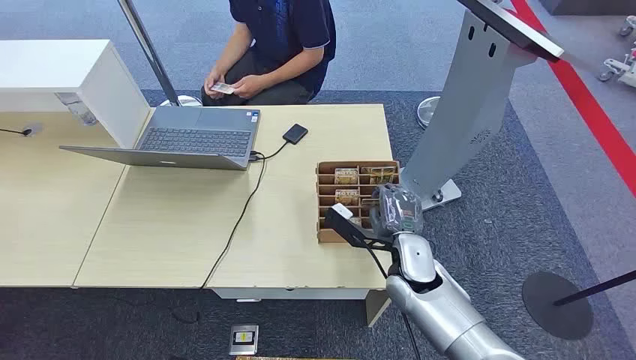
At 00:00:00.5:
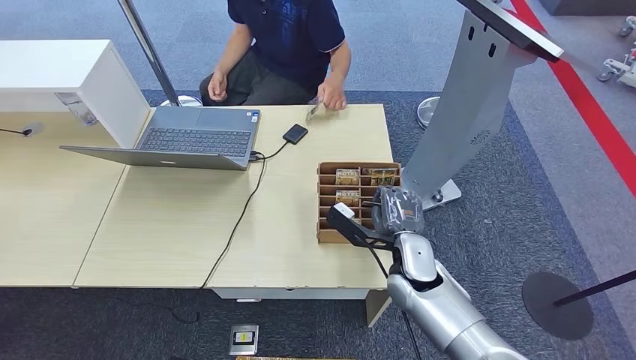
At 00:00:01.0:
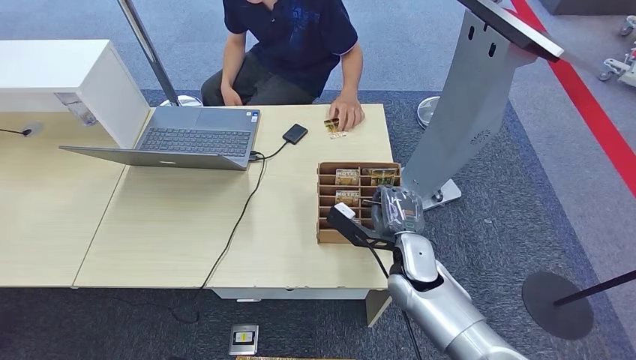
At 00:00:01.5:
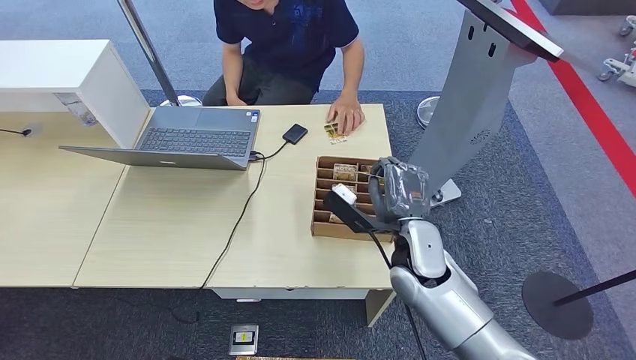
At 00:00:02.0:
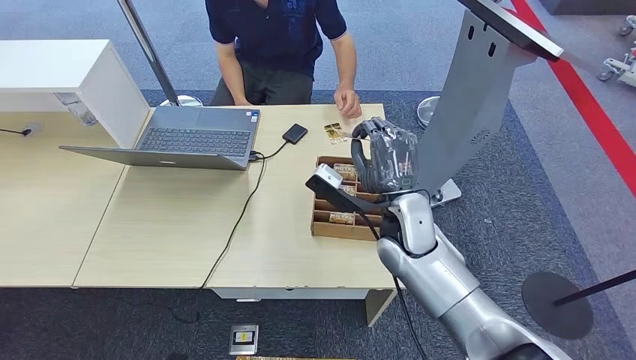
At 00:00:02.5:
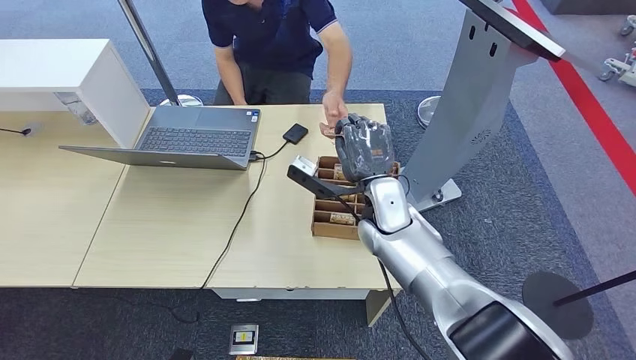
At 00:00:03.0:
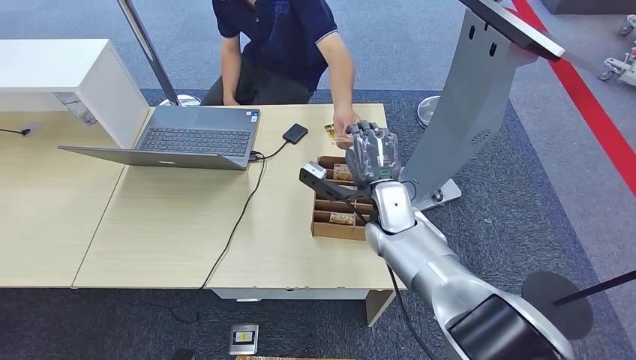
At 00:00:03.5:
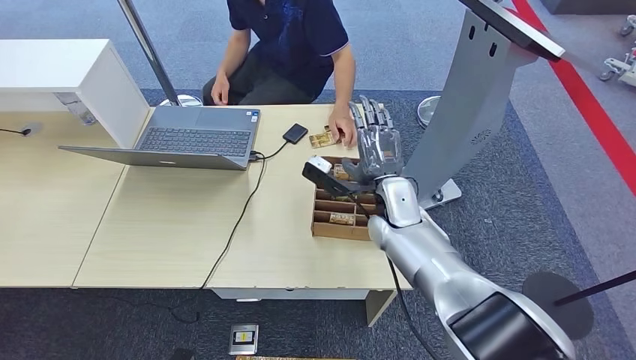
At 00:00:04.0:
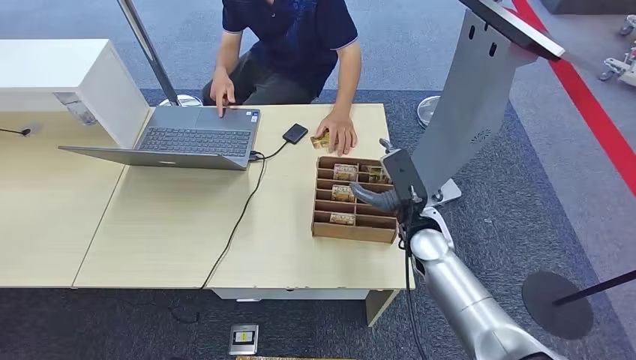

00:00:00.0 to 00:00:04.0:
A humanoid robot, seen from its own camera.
Step, 00:00:00.0 to 00:00:02.0: Pick up the room card from the card holder.
Step, 00:00:02.5 to 00:00:03.5: Hand the room card to the target.
00:00:02.0 to 00:00:04.0: The right hand is displaced downward by roughly 5 cm.
